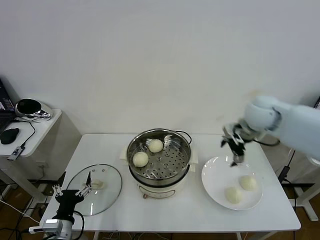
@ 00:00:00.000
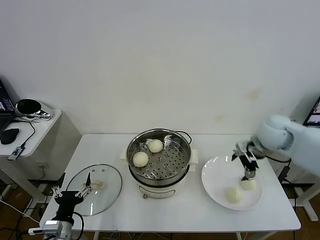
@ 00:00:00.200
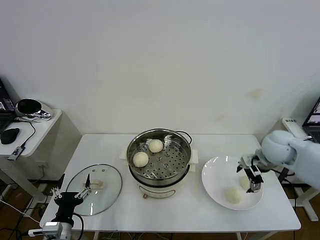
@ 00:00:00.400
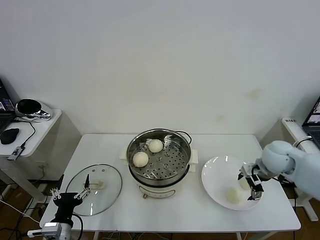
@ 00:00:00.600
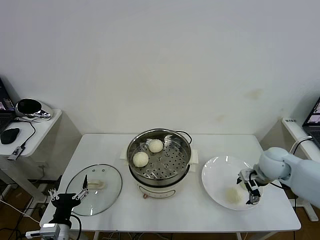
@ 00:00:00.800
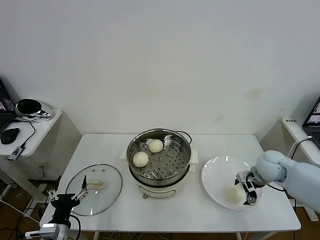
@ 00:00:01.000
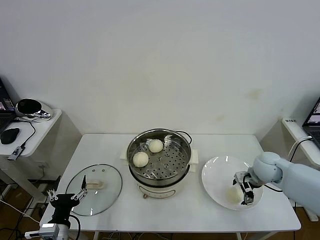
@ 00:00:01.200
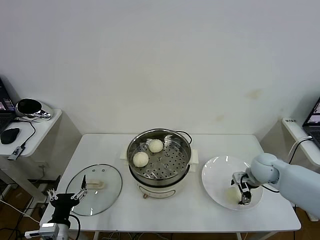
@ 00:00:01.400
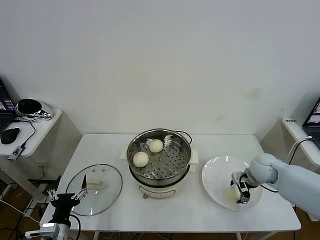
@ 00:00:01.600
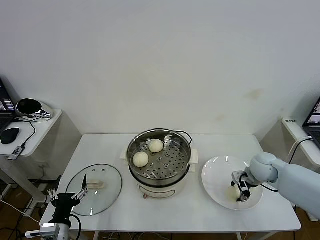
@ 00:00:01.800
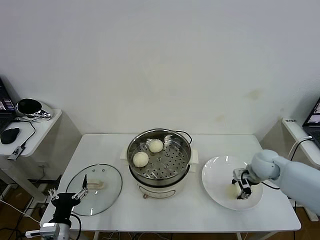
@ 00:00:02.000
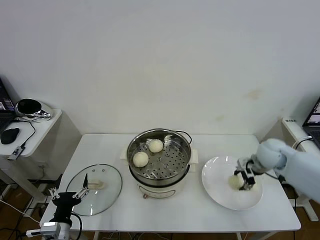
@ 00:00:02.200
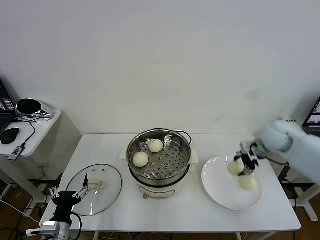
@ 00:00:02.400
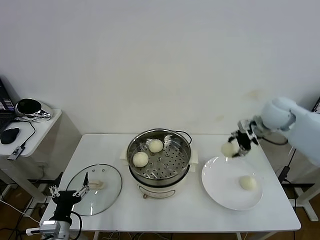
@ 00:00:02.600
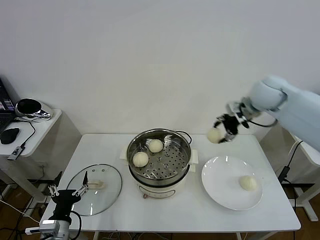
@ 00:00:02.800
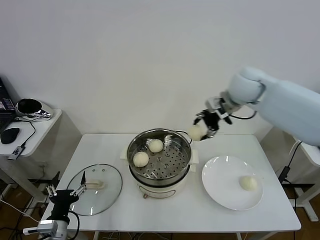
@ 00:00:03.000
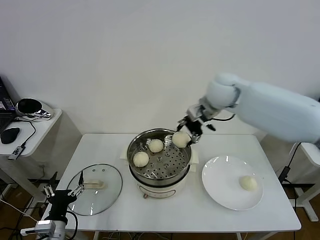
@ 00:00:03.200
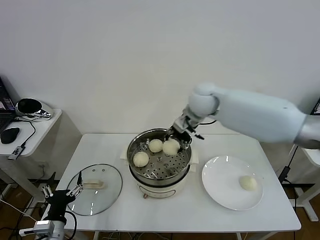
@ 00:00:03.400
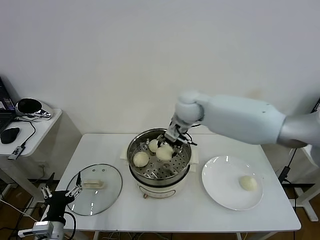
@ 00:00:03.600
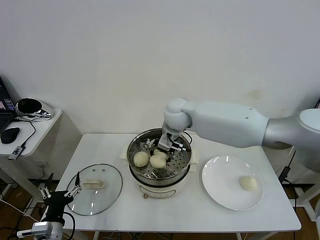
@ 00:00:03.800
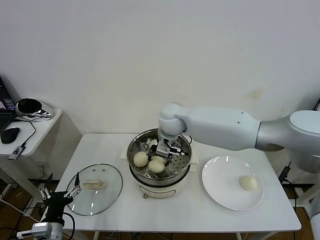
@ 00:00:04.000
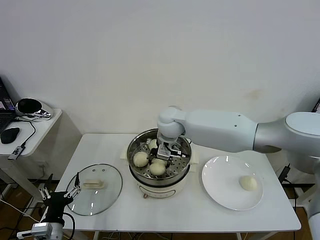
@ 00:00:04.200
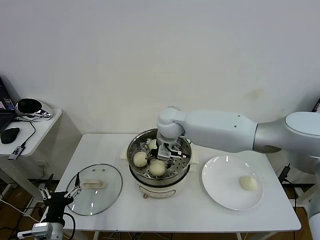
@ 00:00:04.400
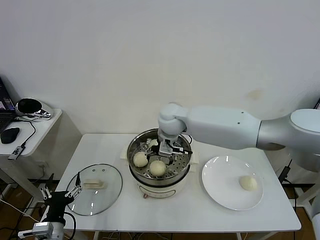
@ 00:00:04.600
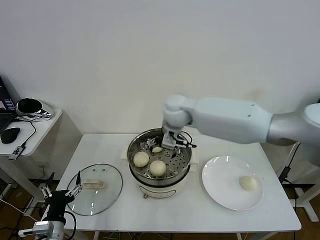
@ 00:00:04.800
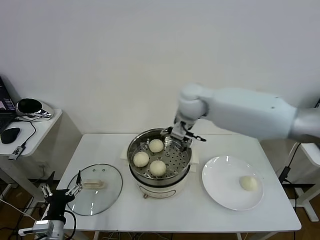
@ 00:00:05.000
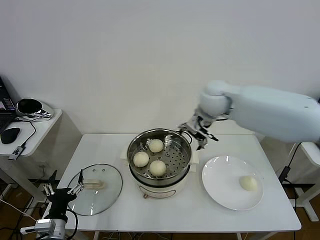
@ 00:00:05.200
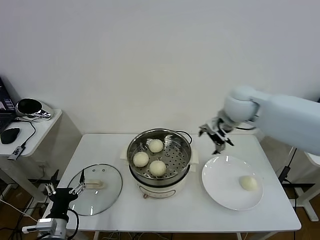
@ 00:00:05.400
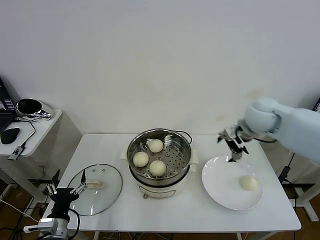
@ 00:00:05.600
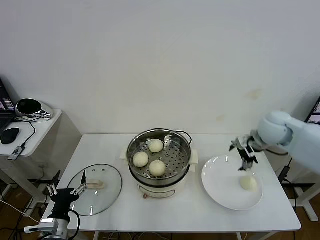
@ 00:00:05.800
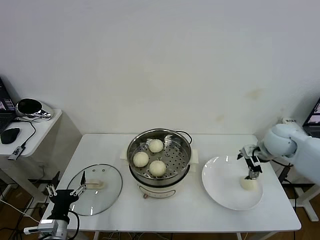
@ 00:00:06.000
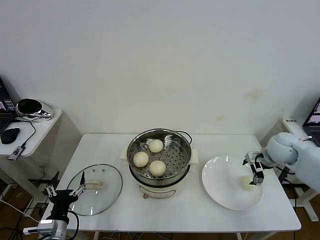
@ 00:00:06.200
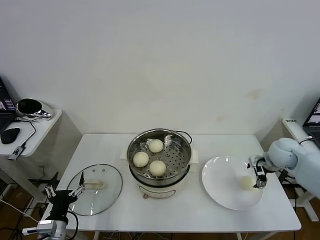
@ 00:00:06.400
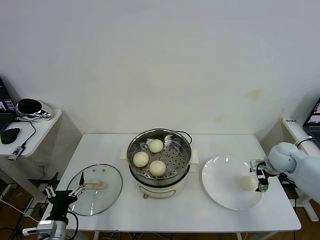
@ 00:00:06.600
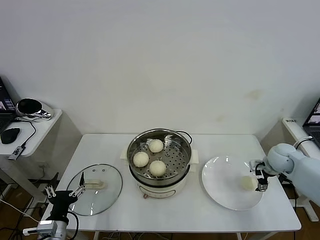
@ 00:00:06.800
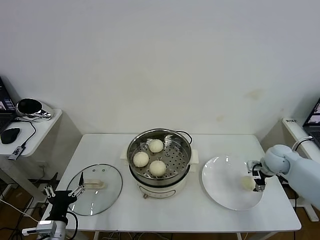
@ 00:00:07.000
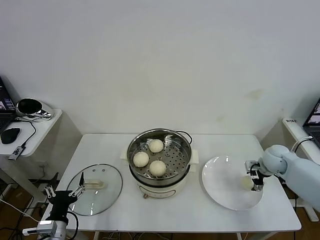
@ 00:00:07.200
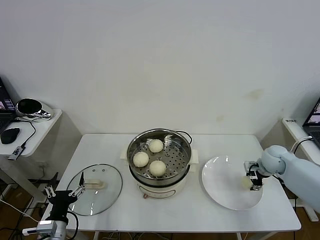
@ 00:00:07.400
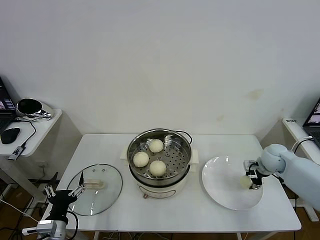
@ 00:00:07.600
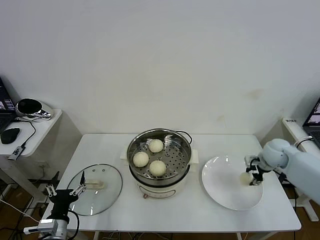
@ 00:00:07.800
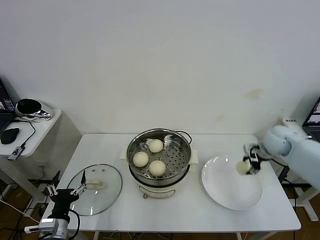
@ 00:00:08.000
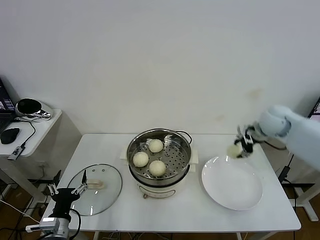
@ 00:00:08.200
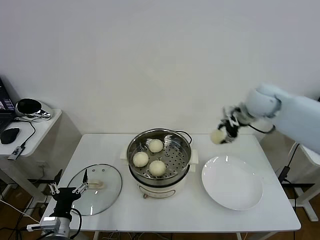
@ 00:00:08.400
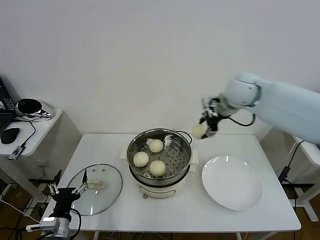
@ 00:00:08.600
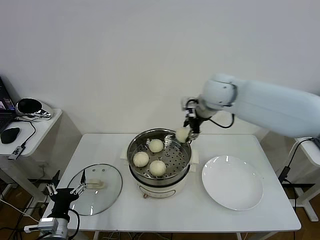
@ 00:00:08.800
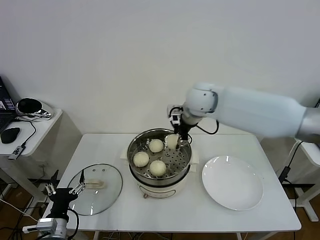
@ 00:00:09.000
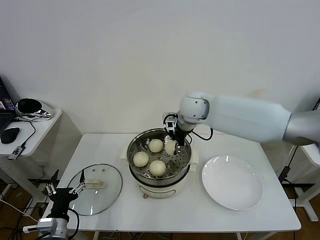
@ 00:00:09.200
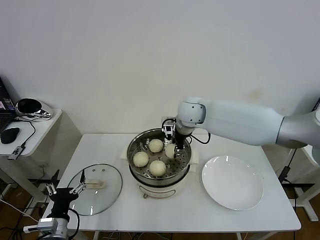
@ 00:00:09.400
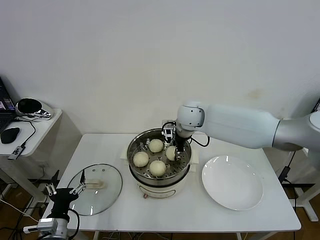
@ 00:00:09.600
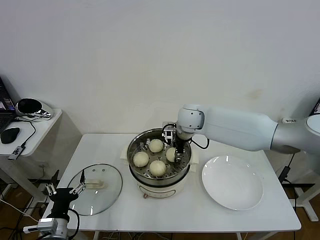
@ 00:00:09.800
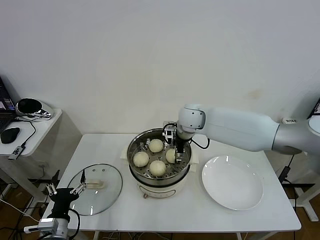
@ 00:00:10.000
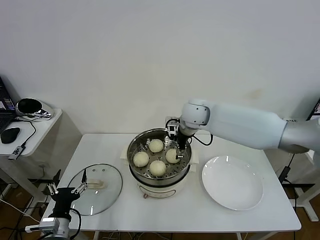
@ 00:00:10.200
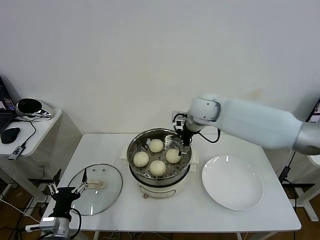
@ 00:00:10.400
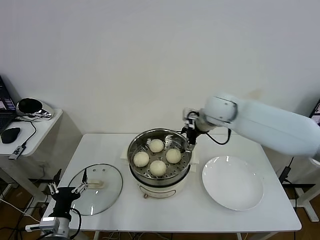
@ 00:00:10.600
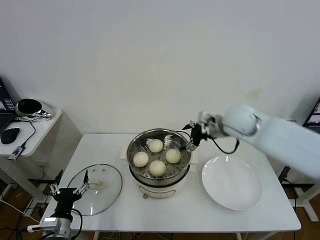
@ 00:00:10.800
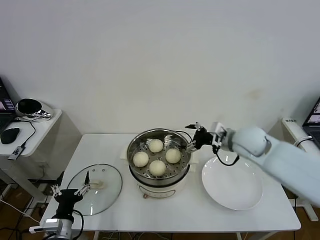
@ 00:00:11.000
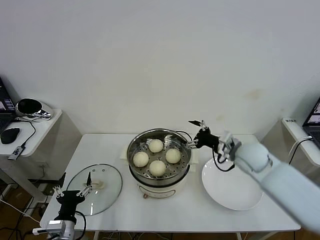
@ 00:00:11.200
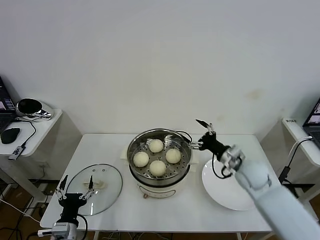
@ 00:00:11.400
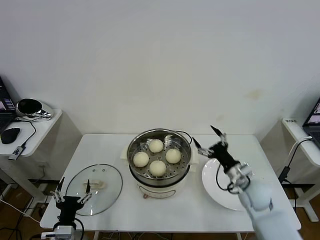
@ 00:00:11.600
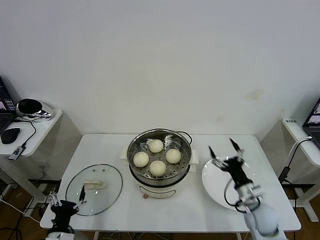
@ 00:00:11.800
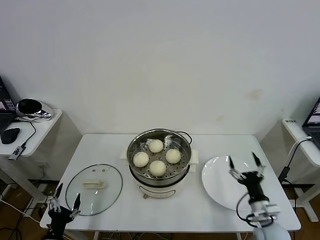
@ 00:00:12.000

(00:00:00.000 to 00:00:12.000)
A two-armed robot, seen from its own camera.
Task of the whole recording: take steamed baozi put them in steamer then cover it.
Step, 00:00:00.000 - 00:00:01.800: Grasp the baozi in the plate with right gripper.
Step, 00:00:02.000 - 00:00:04.600: Place the baozi on the steamer with right gripper.
Step, 00:00:04.800 - 00:00:07.400: Grasp the baozi in the plate with right gripper.
Step, 00:00:07.600 - 00:00:10.200: Place the baozi on the steamer with right gripper.
00:00:00.000 - 00:00:01.600: The right gripper moves downward, approximately 20 cm.
00:00:01.600 - 00:00:03.000: The right gripper shifts about 30 cm upward and to the left, and closes its fingers.
00:00:03.000 - 00:00:04.400: The right gripper is displaced to the left and downward by about 20 cm, and opens.
00:00:04.400 - 00:00:06.000: The right gripper goes roughly 35 cm to the right.
00:00:06.000 - 00:00:07.600: The right gripper is displaced downward by some 10 cm, and closes its fingers.
00:00:07.600 - 00:00:09.000: The right gripper shifts approximately 35 cm to the left and upward.
00:00:09.000 - 00:00:10.400: The right gripper opens.
00:00:10.400 - 00:00:12.000: The right gripper is displaced backward, downward and to the right by some 40 cm. The left gripper ends up approximately 5 cm from where it was.

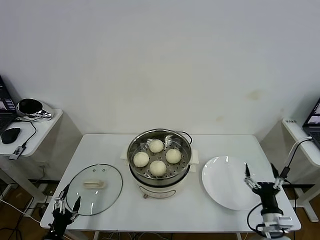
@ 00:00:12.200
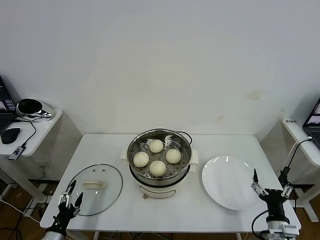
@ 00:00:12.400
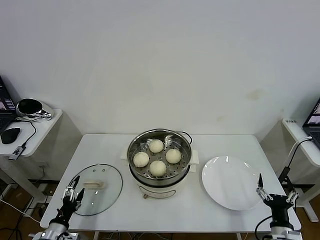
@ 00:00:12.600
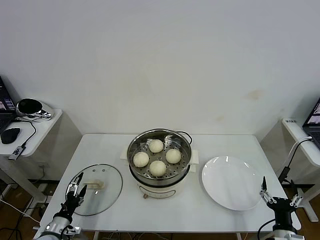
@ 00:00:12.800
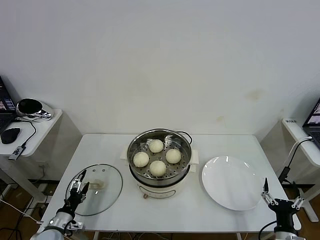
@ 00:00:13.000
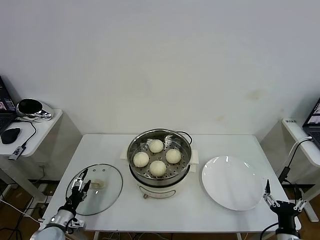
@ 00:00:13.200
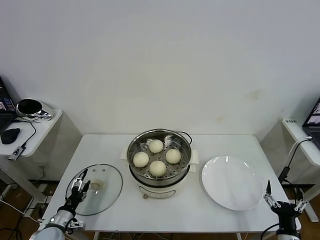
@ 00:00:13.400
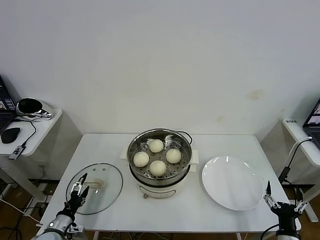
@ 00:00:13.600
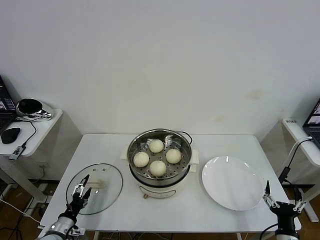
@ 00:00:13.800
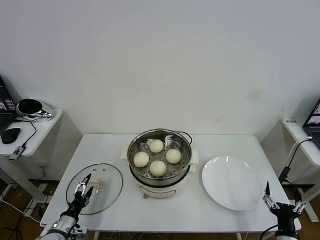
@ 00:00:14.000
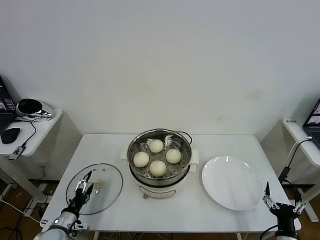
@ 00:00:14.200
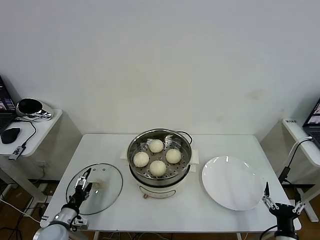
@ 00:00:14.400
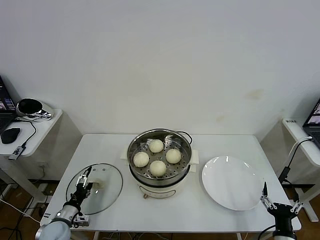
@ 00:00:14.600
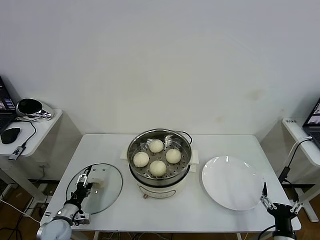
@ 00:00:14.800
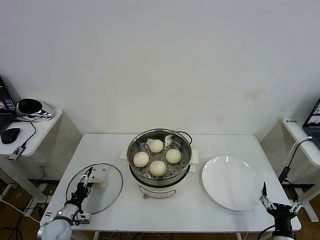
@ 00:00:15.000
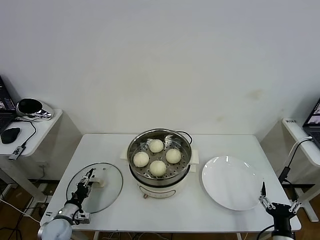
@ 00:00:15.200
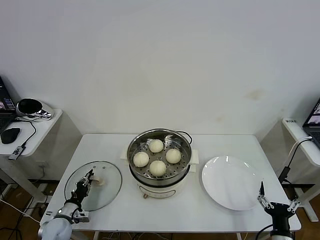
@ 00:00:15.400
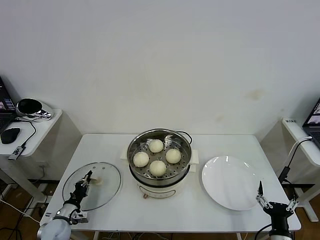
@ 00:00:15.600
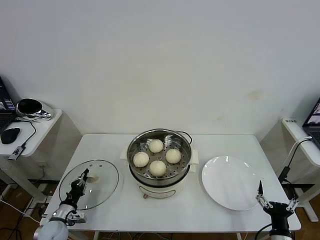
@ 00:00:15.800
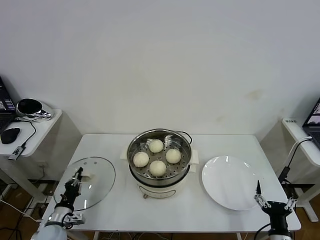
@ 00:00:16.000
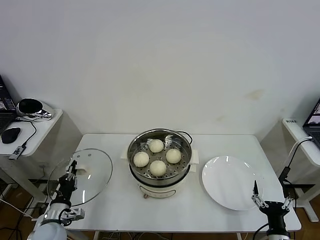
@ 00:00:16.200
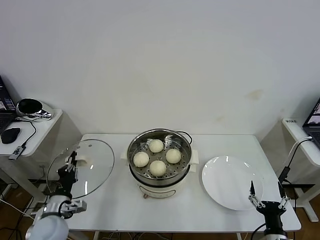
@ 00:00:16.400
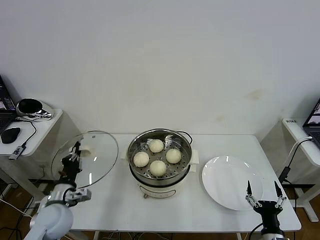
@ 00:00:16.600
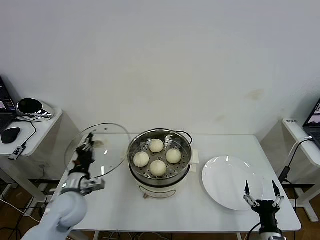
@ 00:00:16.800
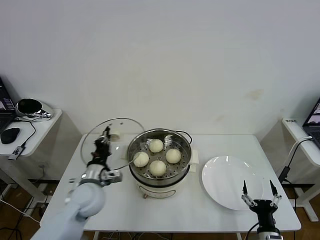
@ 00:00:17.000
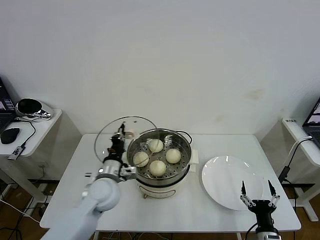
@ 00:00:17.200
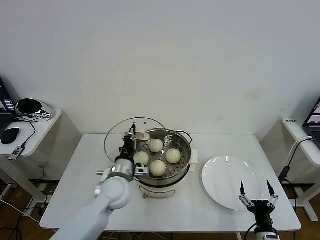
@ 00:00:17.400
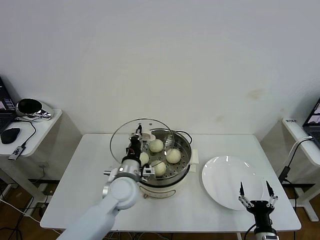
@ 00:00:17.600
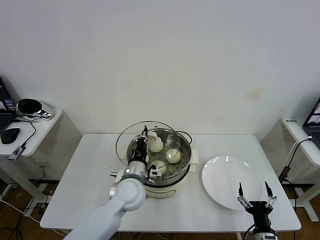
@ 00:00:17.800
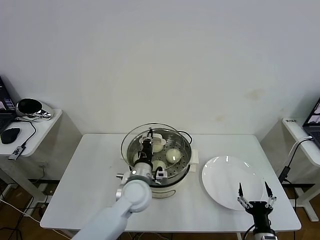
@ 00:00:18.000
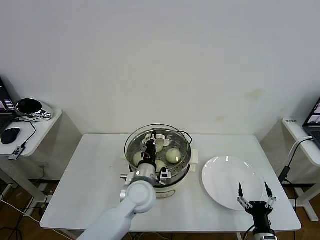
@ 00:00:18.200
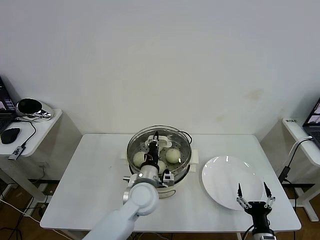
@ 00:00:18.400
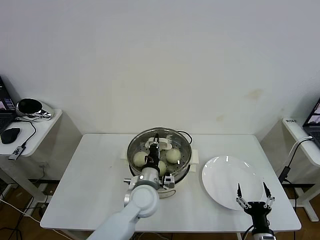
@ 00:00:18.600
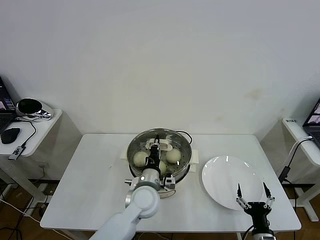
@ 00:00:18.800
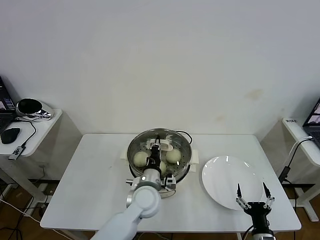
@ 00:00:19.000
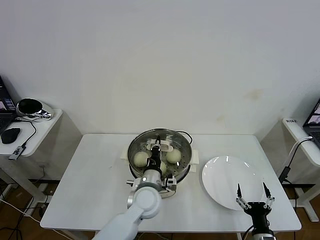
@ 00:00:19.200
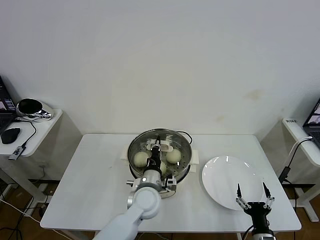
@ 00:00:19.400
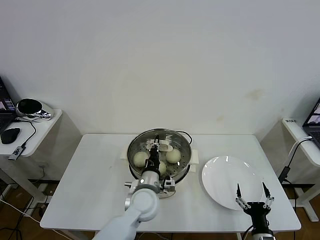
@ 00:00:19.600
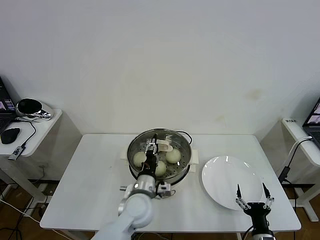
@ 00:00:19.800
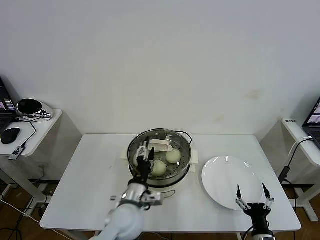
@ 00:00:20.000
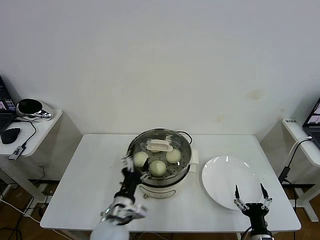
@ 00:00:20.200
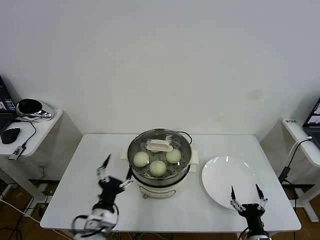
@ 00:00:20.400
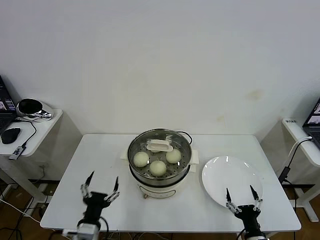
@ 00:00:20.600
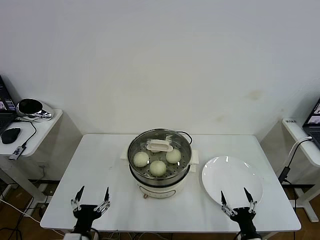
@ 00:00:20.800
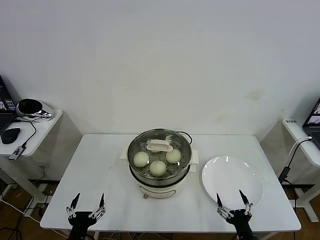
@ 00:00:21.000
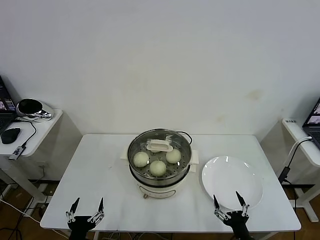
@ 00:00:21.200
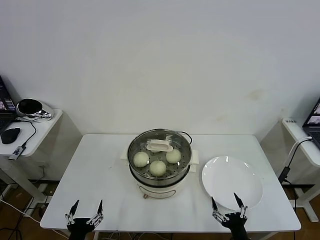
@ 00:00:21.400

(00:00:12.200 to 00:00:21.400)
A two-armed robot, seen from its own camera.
Task of the whole recording: take steamed baozi put them in steamer then cover it.
Step, 00:00:12.200 - 00:00:15.600: Grasp the pot lid with left gripper.
Step, 00:00:16.000 - 00:00:20.000: Place the pot lid on the steamer with left gripper.
00:00:12.200 - 00:00:13.800: The left gripper shifts roughly 10 cm forward. The right gripper goes some 5 cm backward.
00:00:13.800 - 00:00:15.200: The left gripper heads forward, covering roughly 5 cm, and closes.
00:00:15.200 - 00:00:16.800: The left gripper is displaced upward and to the right by about 20 cm, and closes its fingers.
00:00:16.800 - 00:00:18.400: The left gripper is displaced to the right by about 25 cm.
00:00:18.400 - 00:00:19.800: The left gripper opens its fingers.
00:00:19.800 - 00:00:21.400: The left gripper moves to the left and backward, approximately 30 cm, and opens its fingers, while the right gripper changes place by some 5 cm.
